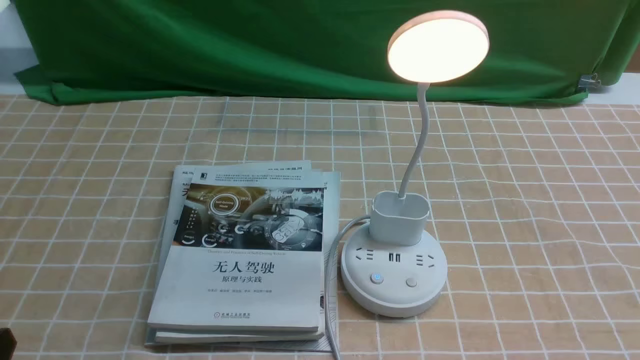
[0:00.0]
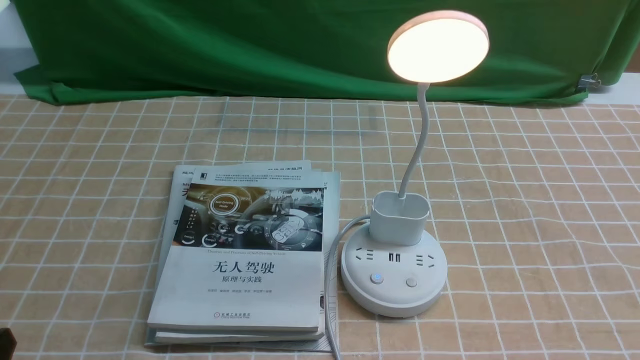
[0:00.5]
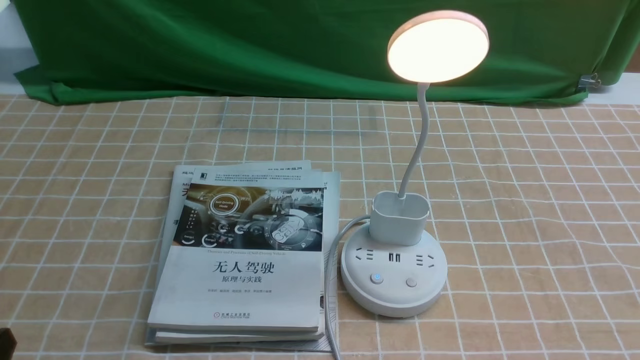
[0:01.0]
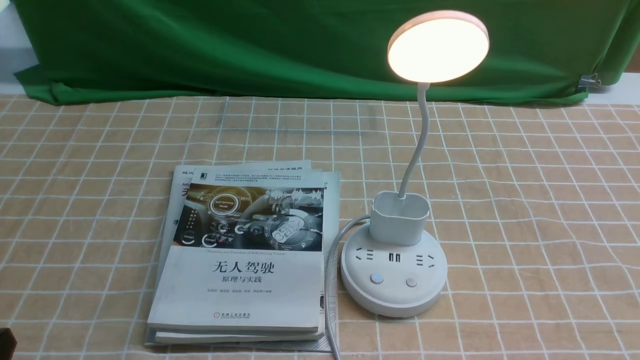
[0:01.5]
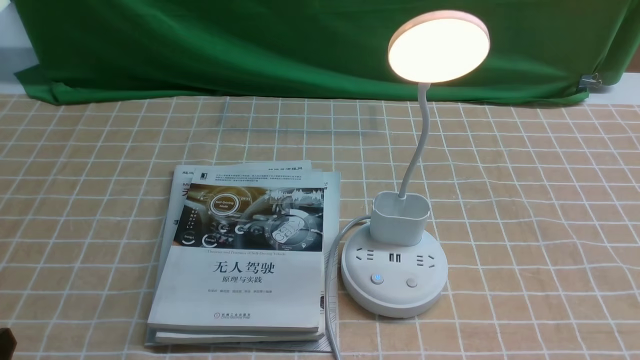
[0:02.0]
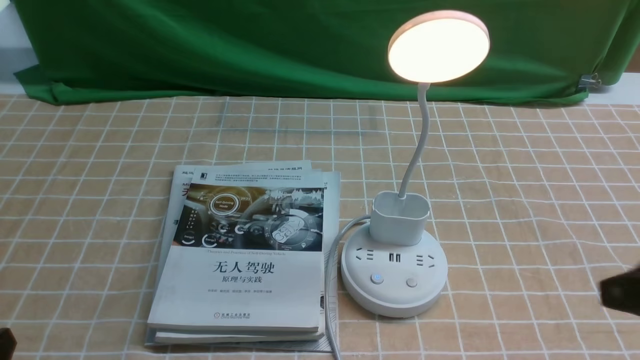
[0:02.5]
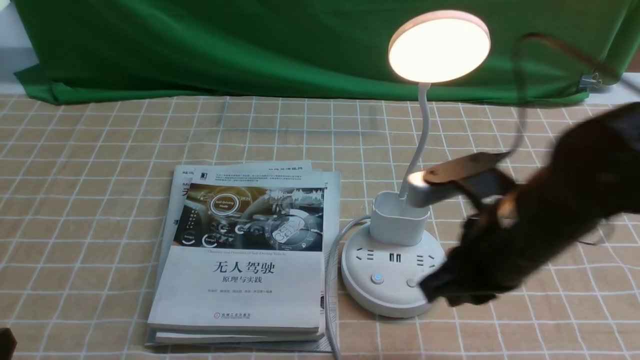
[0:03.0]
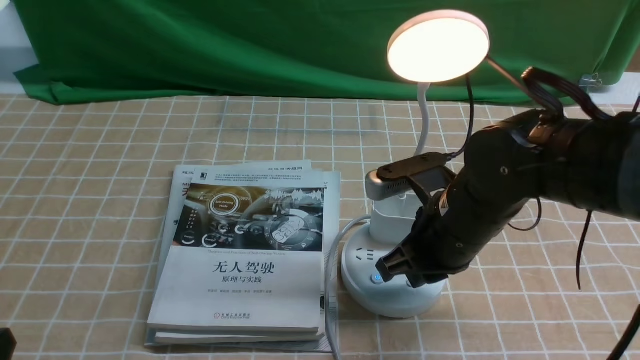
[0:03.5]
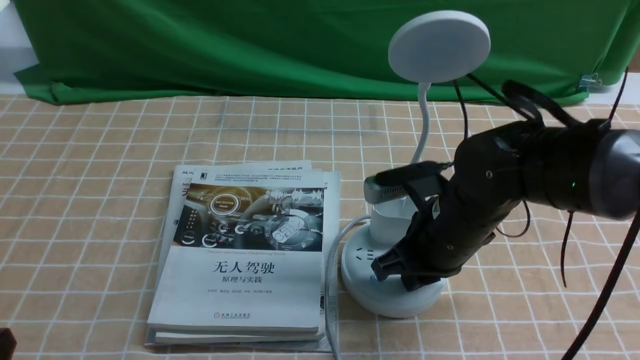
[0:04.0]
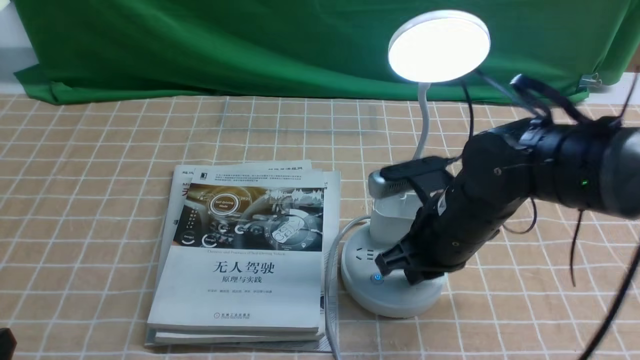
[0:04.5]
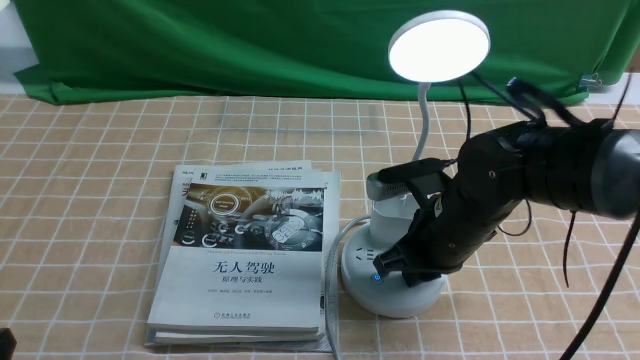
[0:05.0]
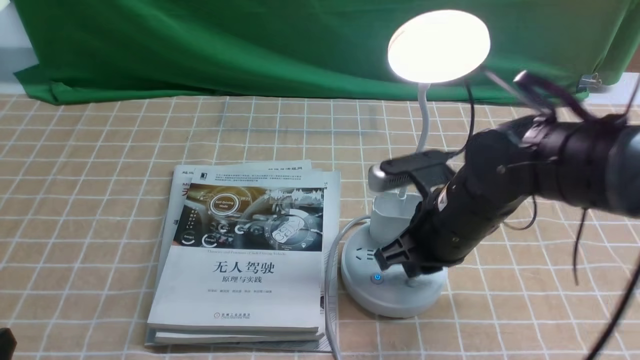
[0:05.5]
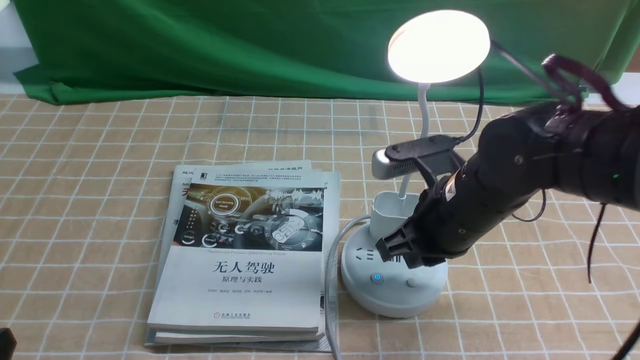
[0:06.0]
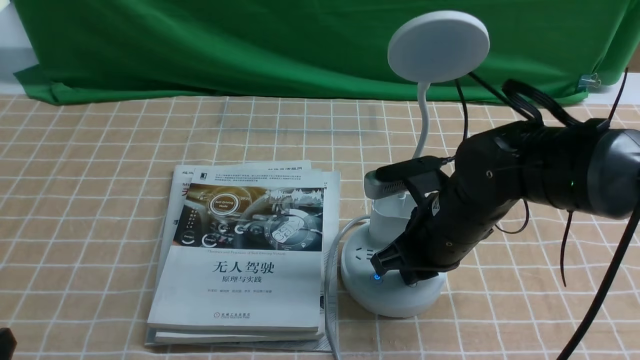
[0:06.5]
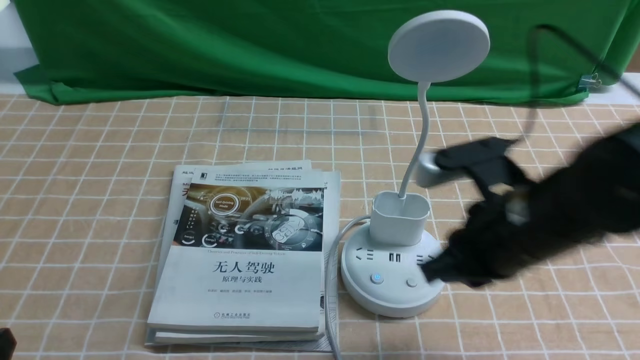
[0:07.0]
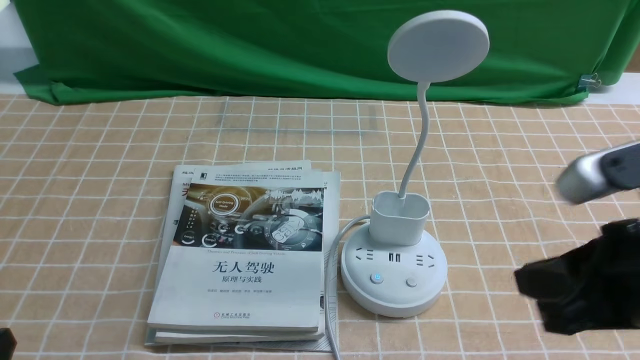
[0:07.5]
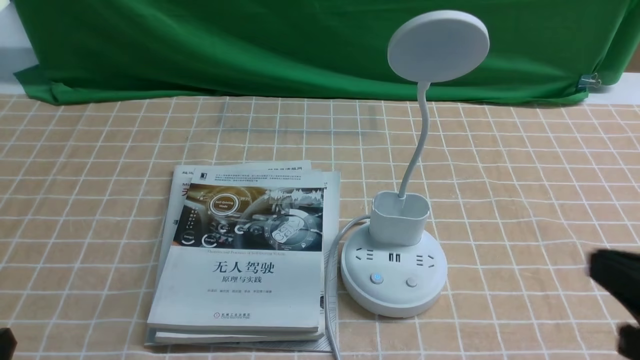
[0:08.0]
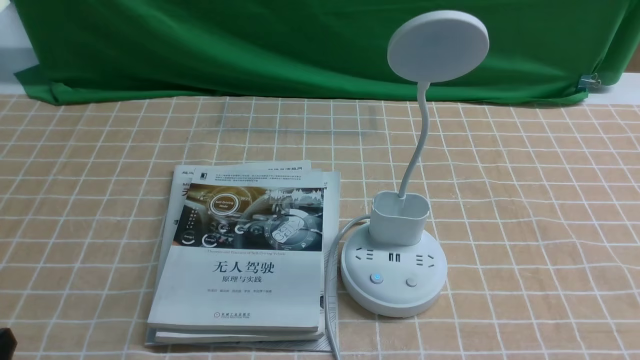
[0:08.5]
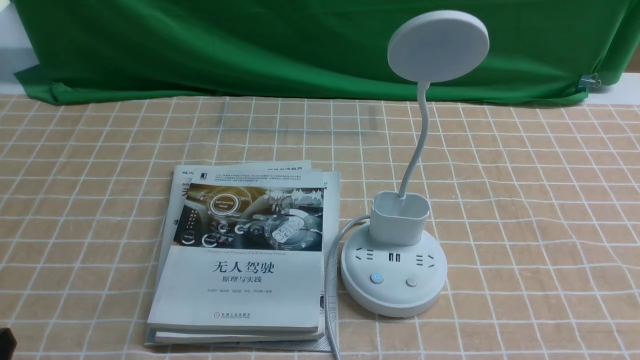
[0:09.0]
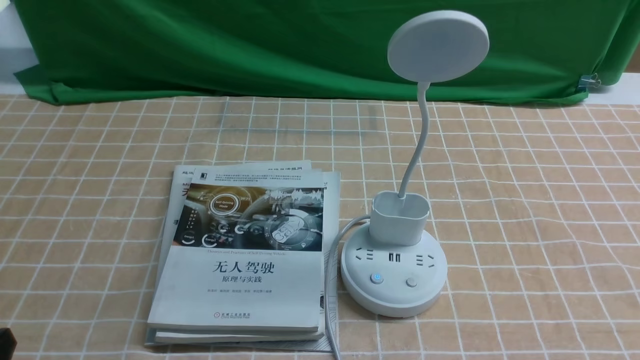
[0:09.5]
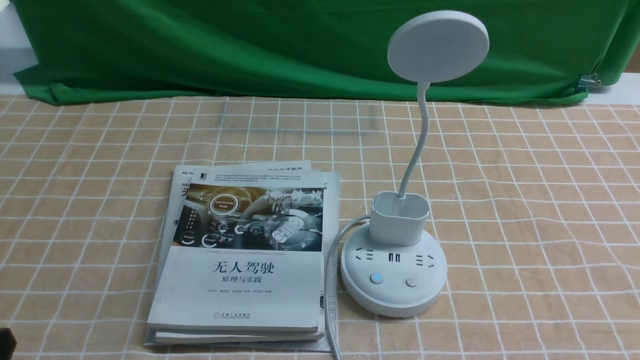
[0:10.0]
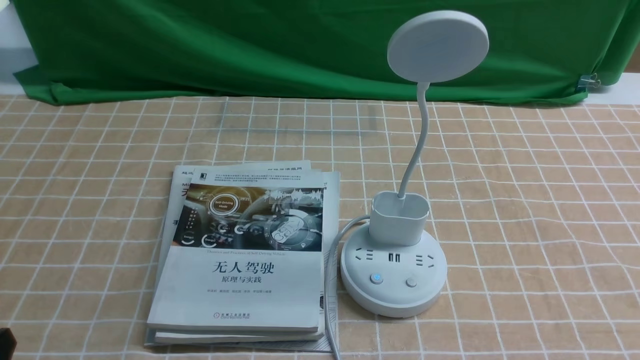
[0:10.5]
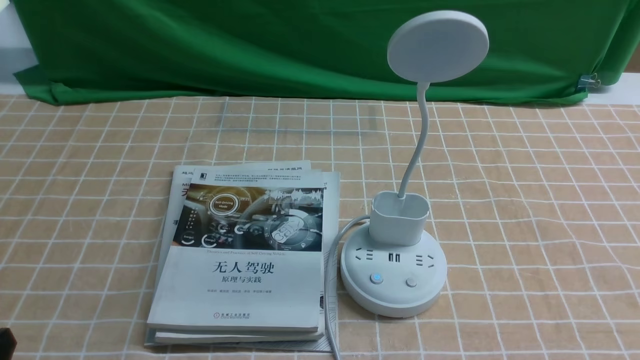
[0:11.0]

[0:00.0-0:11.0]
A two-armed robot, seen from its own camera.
Task of the whole recording: turn off the desk lamp on the light coffee tablecloth by hand.
Step, 0:00.0 to 0:07.0: use the right arm to press the button switch on the lamp holder.
0:02.0 to 0:03.5: The right gripper is displaced forward and to the left by roughly 30 cm, and closes.
0:05.5 to 0:07.5: The right gripper travels backward, upward and to the right by approximately 20 cm.
0:07.5 to 0:09.0: The right gripper goes approximately 20 cm downward, backward and to the right.
